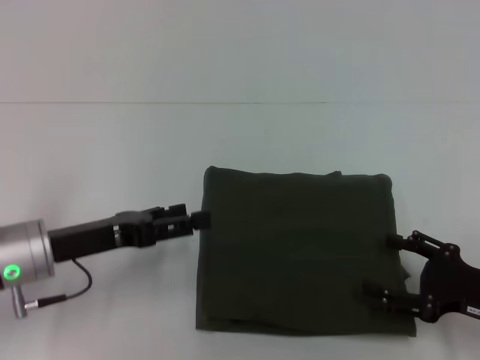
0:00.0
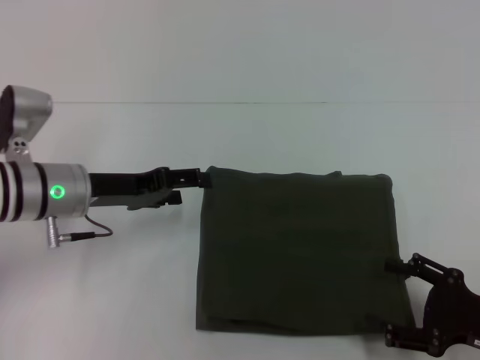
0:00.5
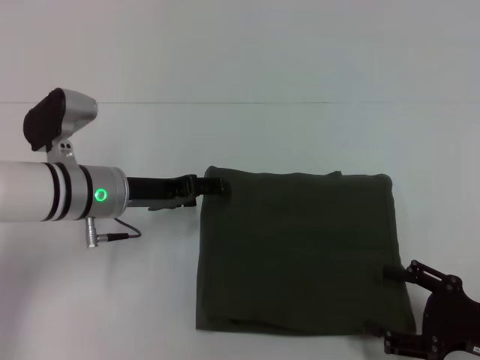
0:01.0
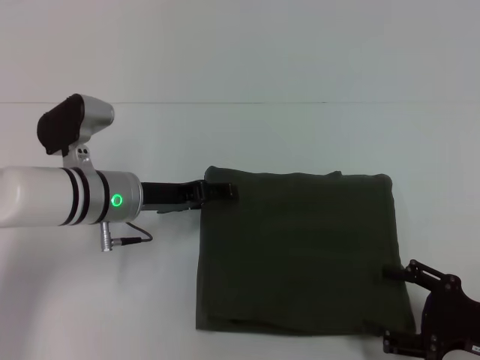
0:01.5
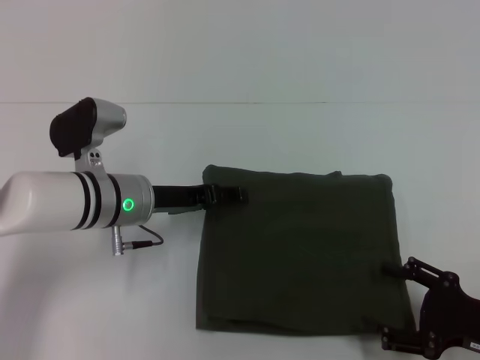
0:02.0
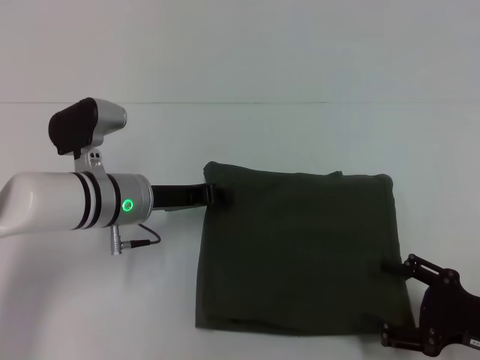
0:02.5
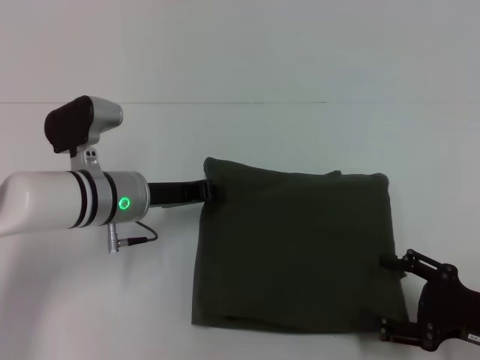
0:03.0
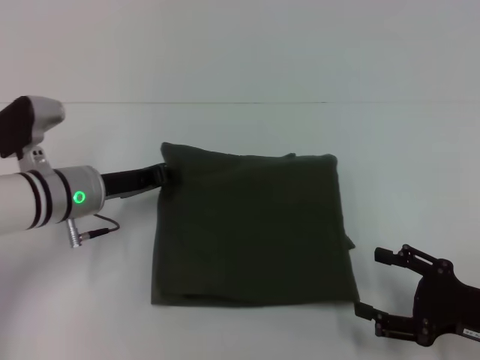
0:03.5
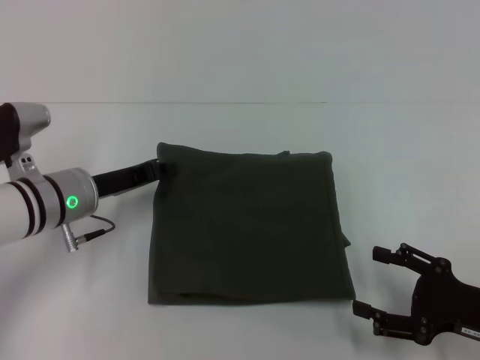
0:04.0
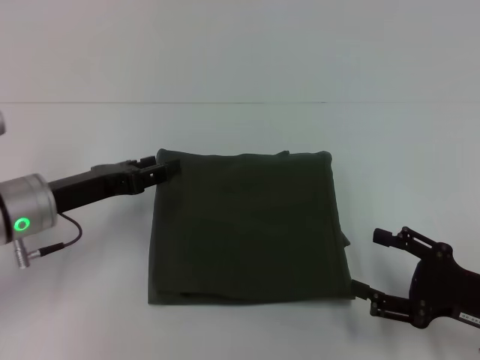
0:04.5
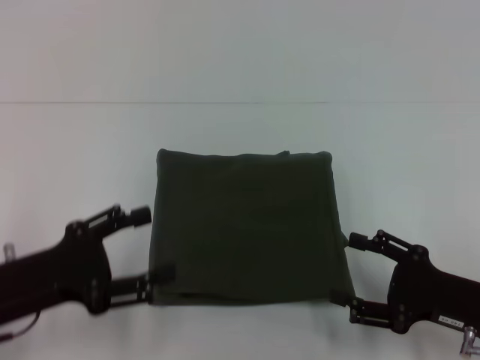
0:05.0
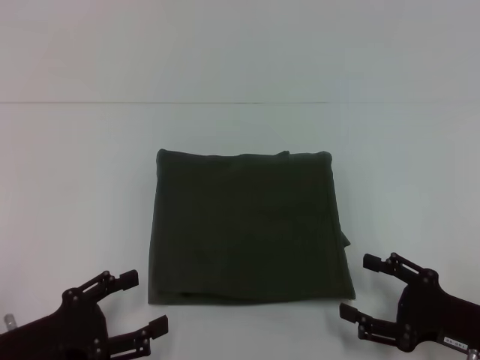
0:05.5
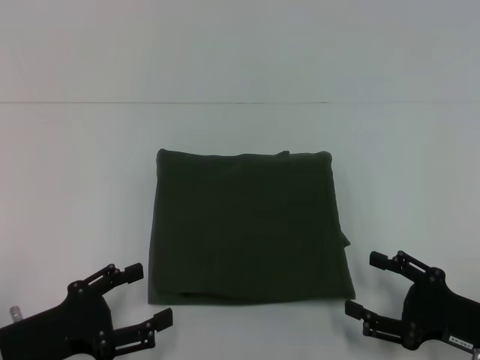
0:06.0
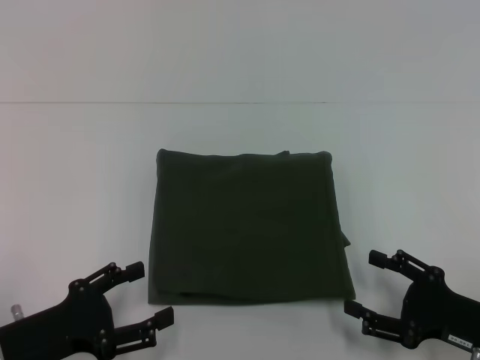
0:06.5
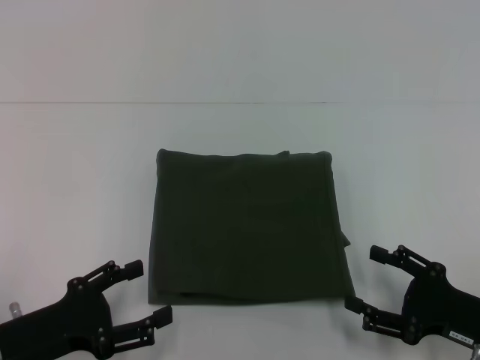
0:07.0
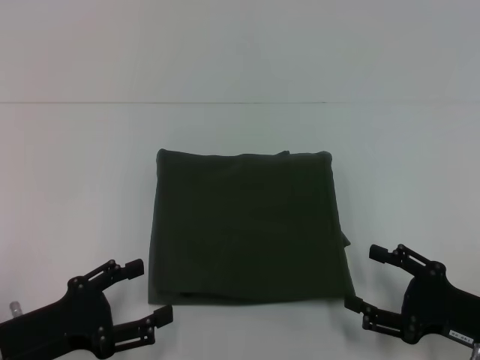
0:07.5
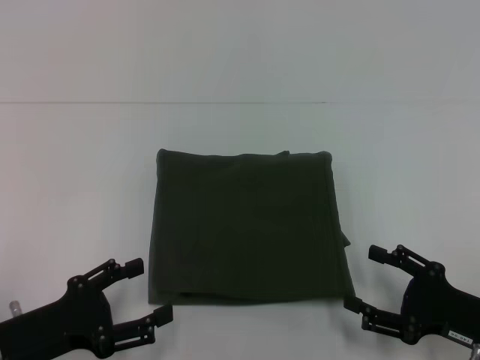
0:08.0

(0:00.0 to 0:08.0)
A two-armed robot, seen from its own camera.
0:00.0 - 0:02.0: The left gripper travels forward and to the right by approximately 10 cm.
0:02.0 - 0:04.0: The left gripper heads to the left, covering approximately 5 cm, and closes up.
0:04.0 - 0:06.0: The left gripper is displaced backward by about 15 cm, and opens its fingers.
0:06.0 - 0:08.0: Neither gripper changes place.

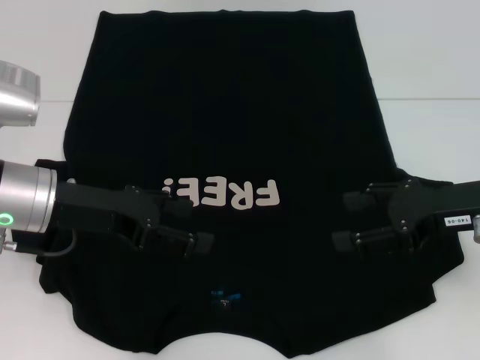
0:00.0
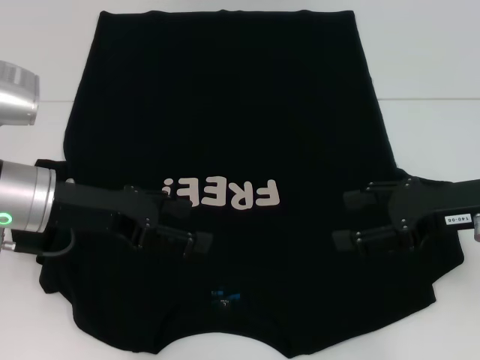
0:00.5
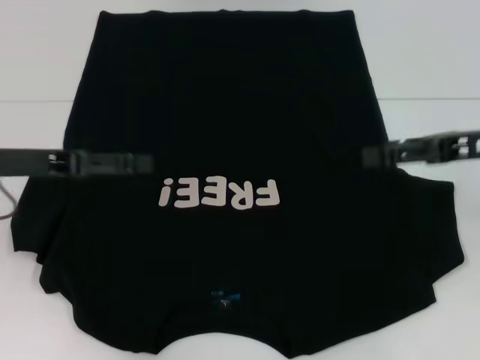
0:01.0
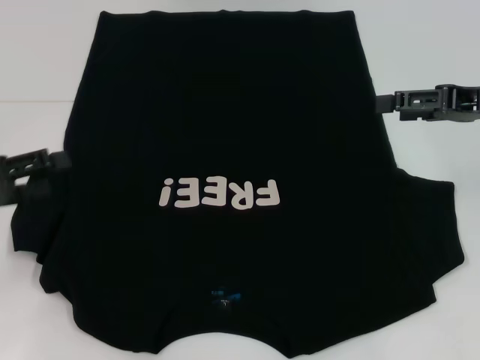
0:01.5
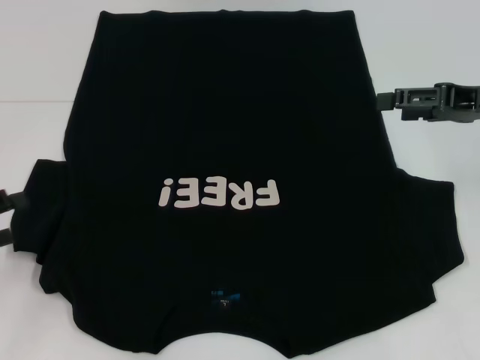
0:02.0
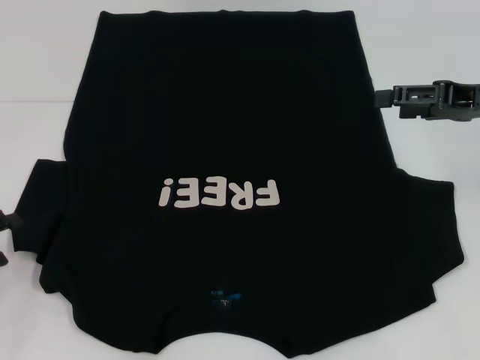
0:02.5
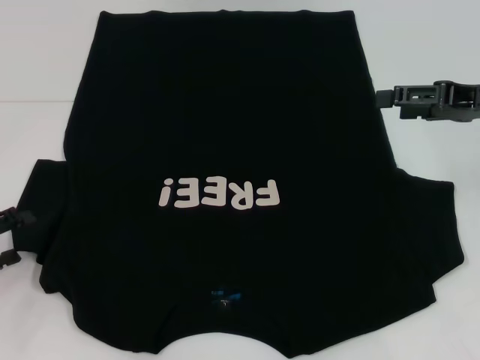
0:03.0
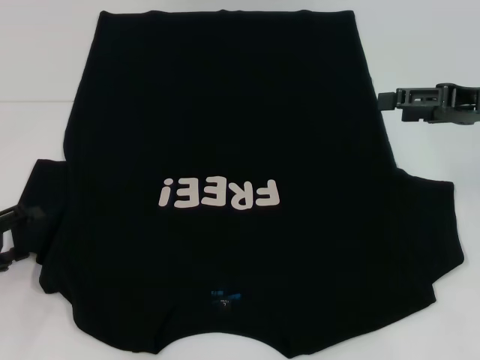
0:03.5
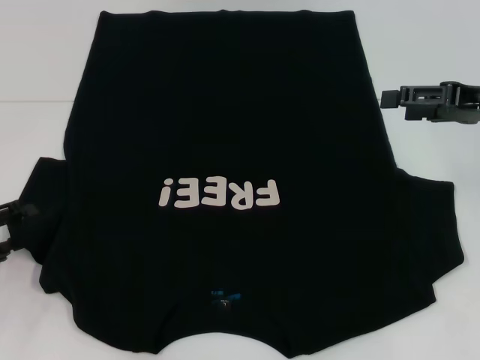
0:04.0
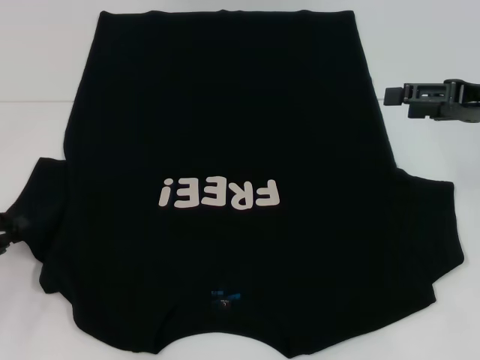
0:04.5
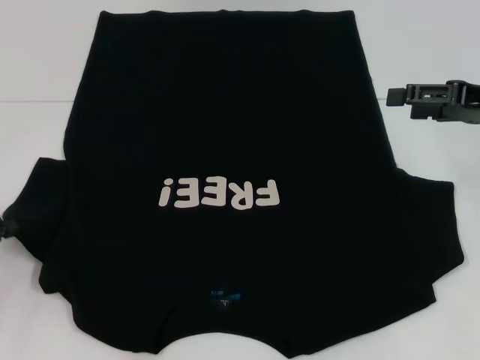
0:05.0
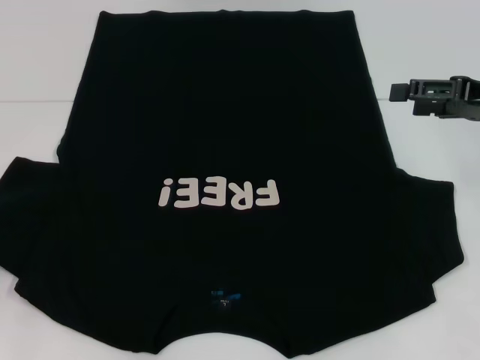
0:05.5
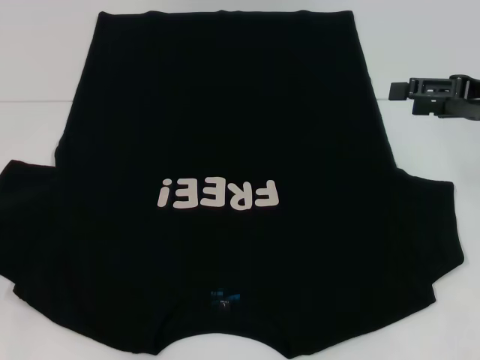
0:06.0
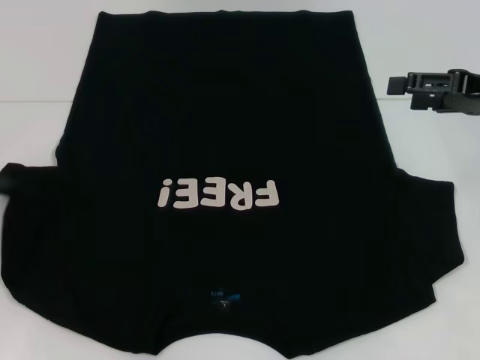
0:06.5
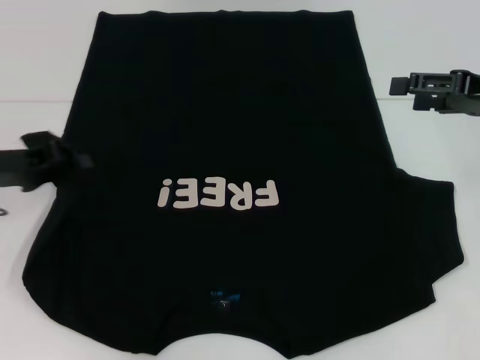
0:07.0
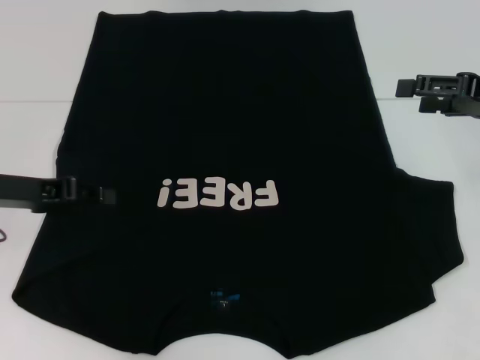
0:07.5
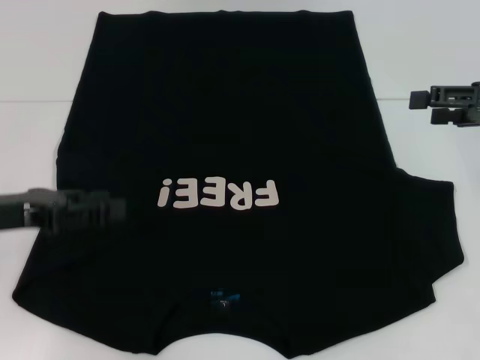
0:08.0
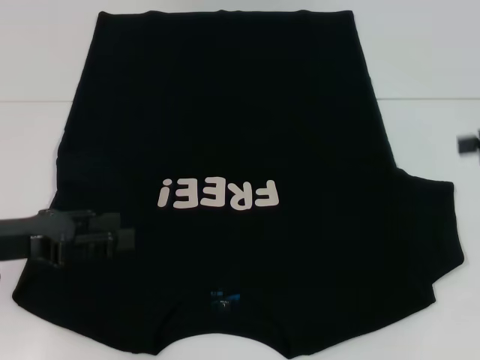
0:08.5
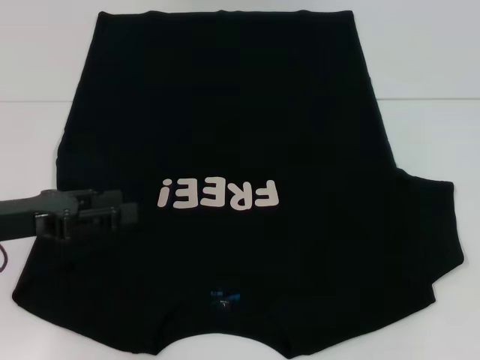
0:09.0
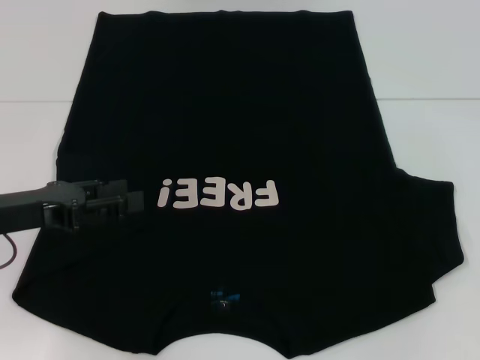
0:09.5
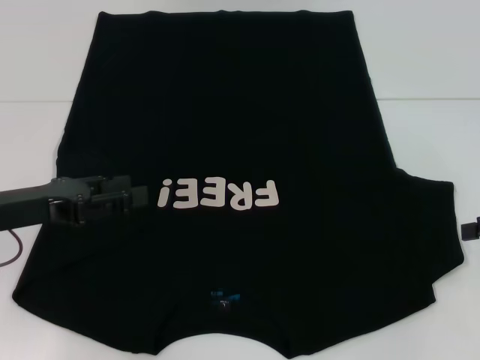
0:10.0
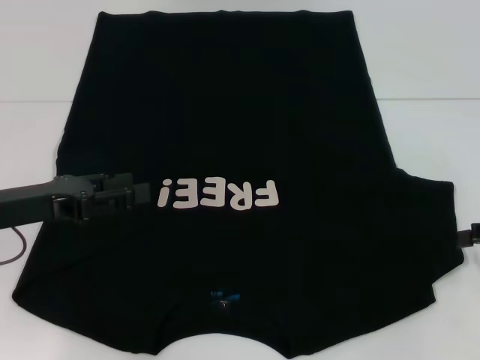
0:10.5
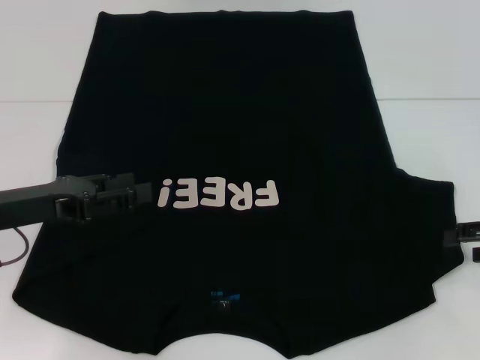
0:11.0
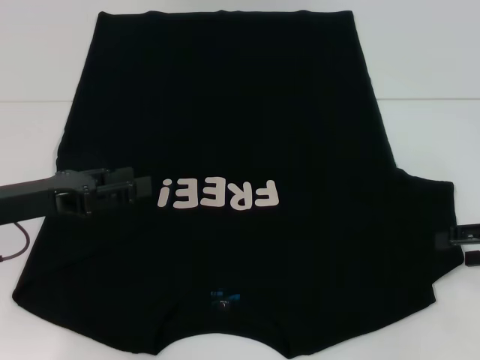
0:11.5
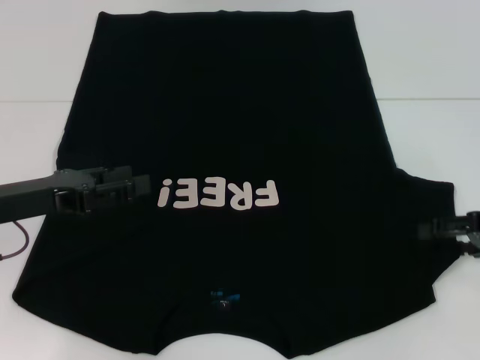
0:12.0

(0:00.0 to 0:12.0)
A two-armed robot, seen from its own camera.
Step, 0:00.0 - 0:08.0: Fold the bottom left sleeve with your left hand.
0:00.0 - 0:02.0: The right gripper travels forward by roughly 5 cm. Meanwhile the left gripper heads to the left and backward, covering approximately 15 cm.
0:02.0 - 0:04.0: The grippers move only a little.
0:04.0 - 0:06.0: The left gripper is displaced to the left by roughly 5 cm, and closes up.
0:06.0 - 0:08.0: The left gripper moves to the right, some 10 cm, and opens up.
0:08.0 - 0:10.0: The right gripper moves backward and downward, roughly 10 cm.
0:10.0 - 0:12.0: The grippers stay close to where they were, moving slightly.

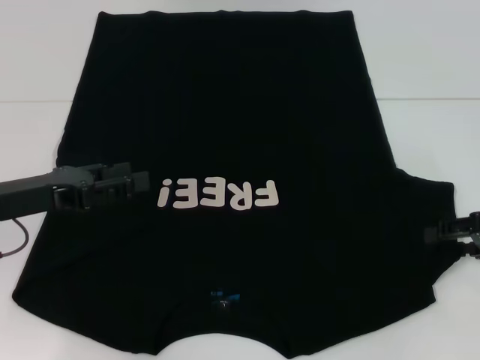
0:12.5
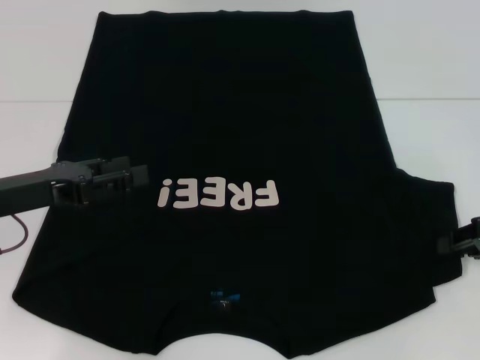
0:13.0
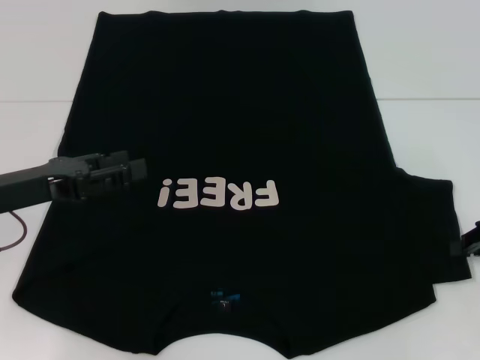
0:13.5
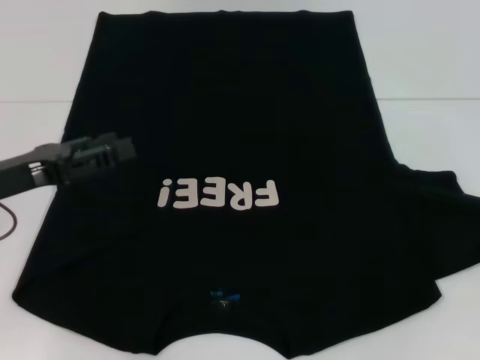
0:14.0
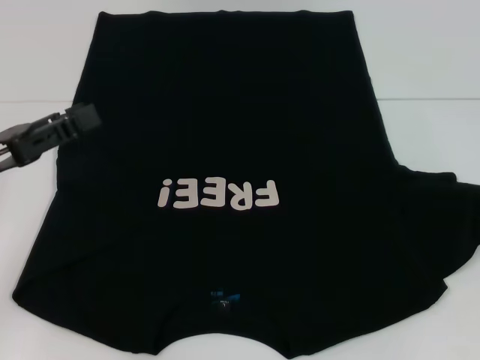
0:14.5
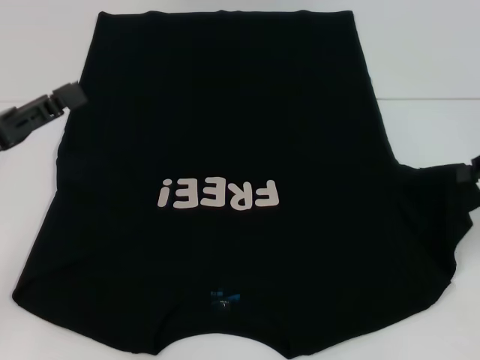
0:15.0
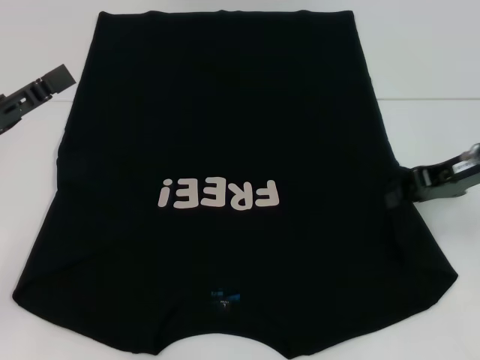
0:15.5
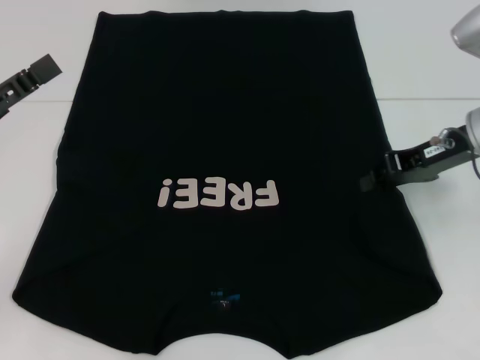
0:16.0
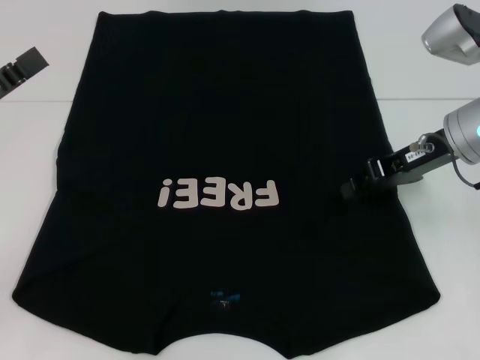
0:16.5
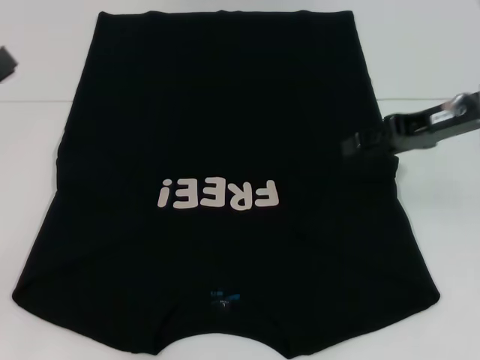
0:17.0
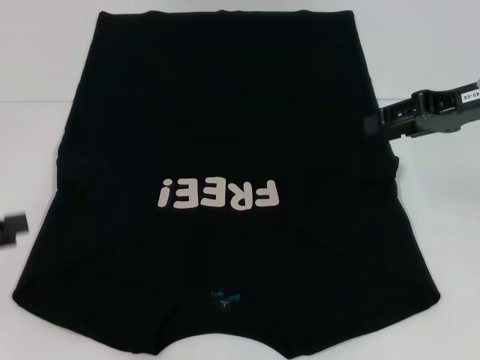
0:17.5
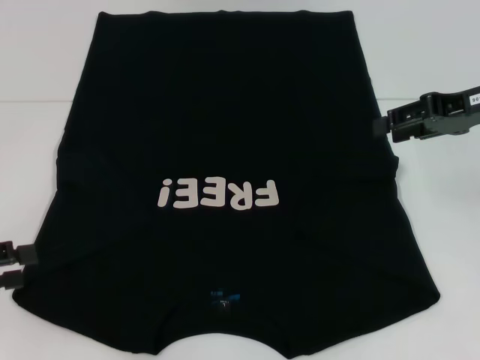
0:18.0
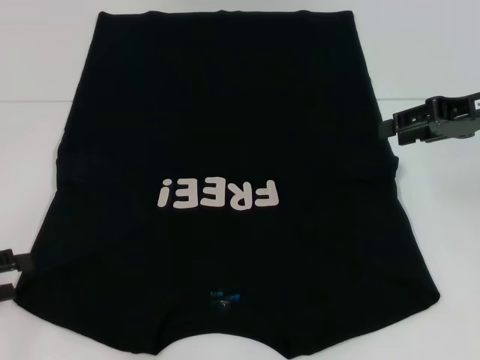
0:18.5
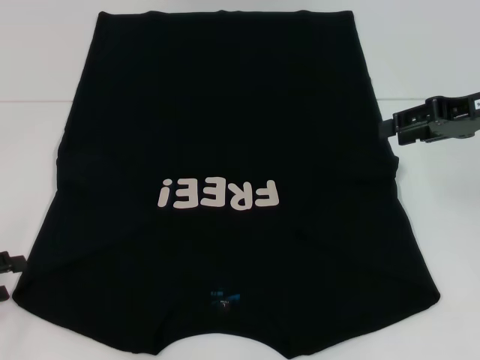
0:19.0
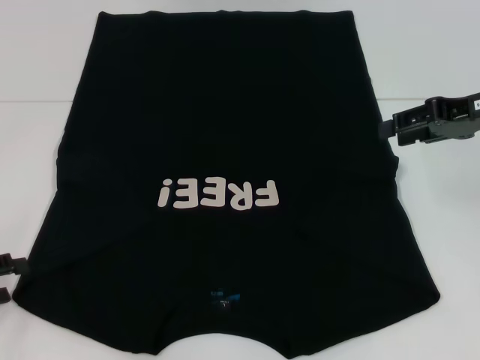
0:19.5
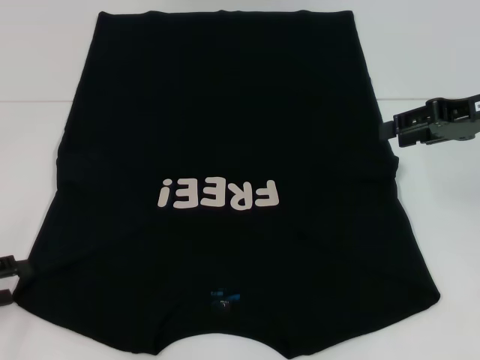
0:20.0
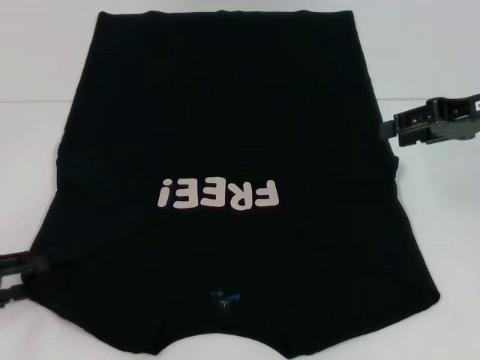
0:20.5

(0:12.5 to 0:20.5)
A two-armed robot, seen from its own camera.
Step, 0:12.5 - 0:16.5: Fold the bottom right sleeve with your right hand.
0:12.5 - 0:14.5: The right gripper changes place by approximately 5 cm, and closes up.
0:14.5 - 0:16.5: The right gripper shifts approximately 15 cm to the left.
0:16.5 - 0:18.5: The left gripper is displaced downward and to the left by approximately 10 cm. Meanwhile the right gripper heads to the right, covering approximately 5 cm, and opens up.
0:18.5 - 0:20.5: The grippers make only small movements.
